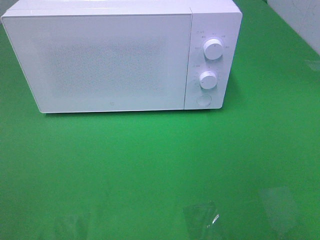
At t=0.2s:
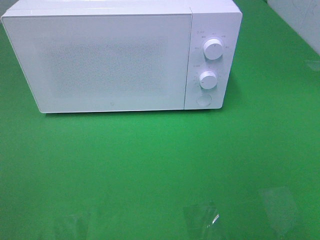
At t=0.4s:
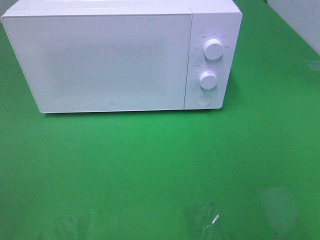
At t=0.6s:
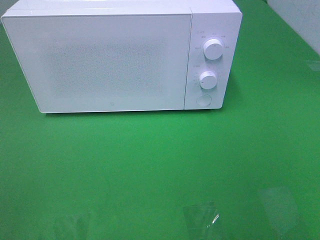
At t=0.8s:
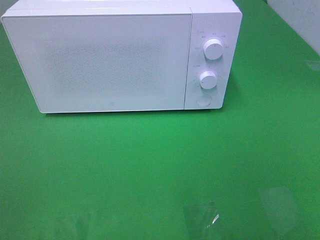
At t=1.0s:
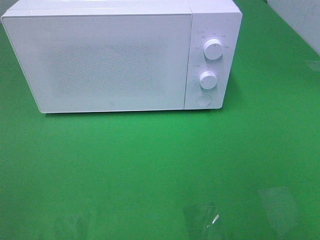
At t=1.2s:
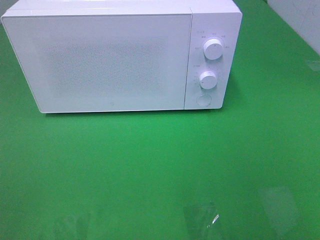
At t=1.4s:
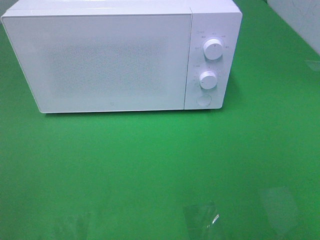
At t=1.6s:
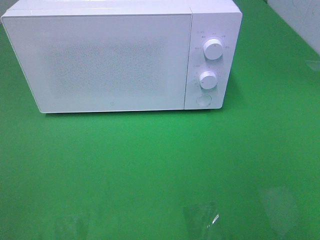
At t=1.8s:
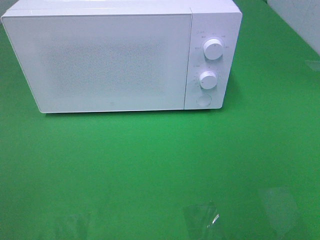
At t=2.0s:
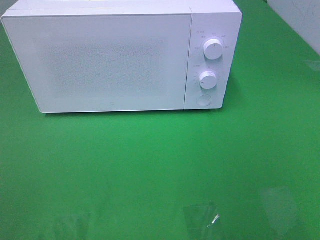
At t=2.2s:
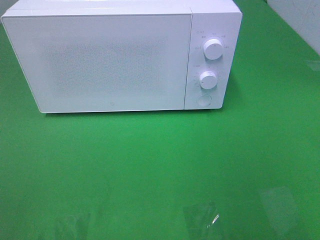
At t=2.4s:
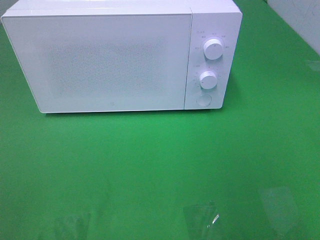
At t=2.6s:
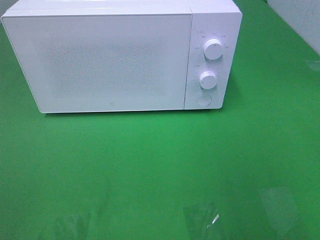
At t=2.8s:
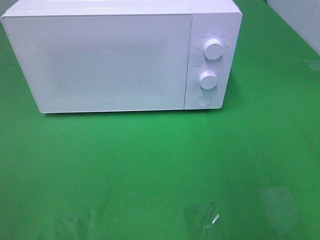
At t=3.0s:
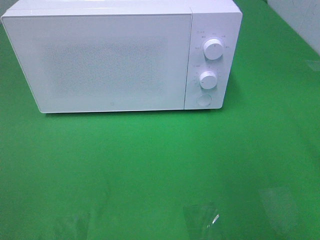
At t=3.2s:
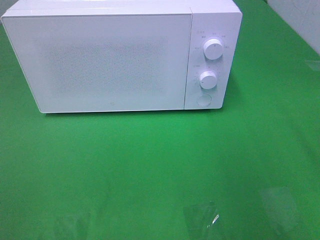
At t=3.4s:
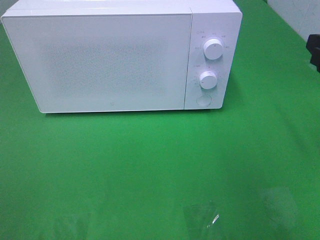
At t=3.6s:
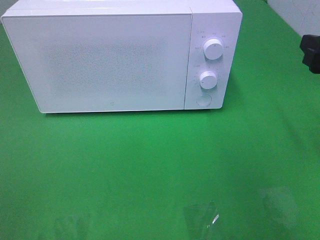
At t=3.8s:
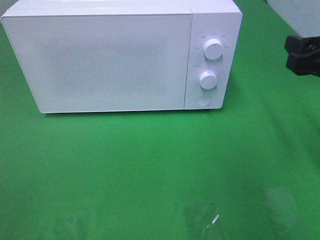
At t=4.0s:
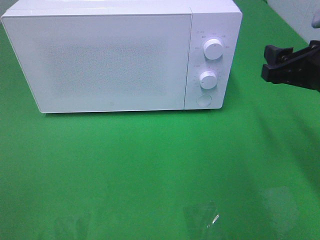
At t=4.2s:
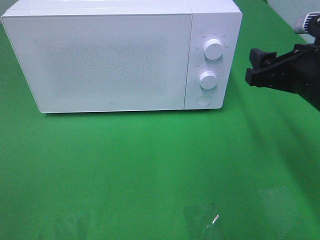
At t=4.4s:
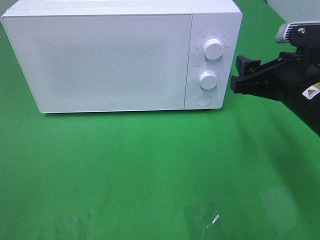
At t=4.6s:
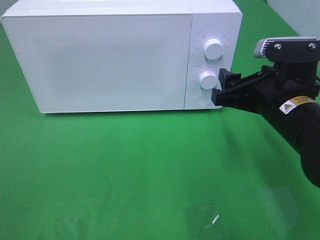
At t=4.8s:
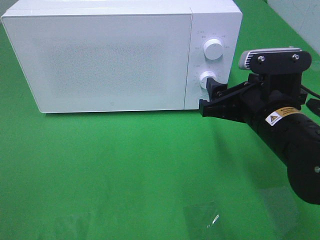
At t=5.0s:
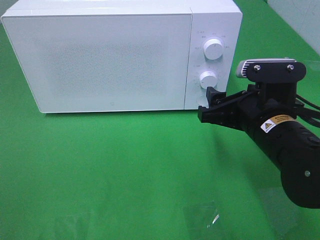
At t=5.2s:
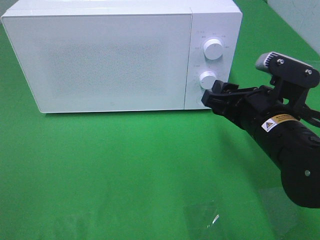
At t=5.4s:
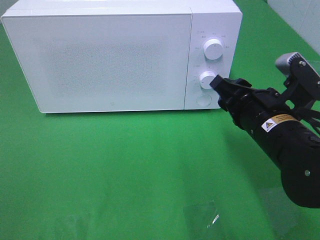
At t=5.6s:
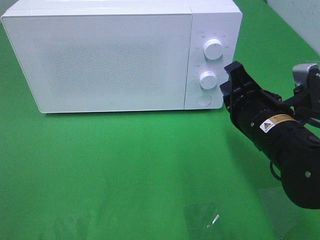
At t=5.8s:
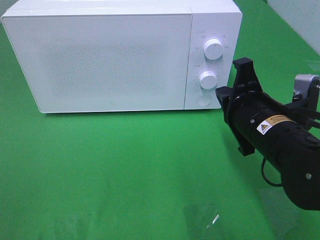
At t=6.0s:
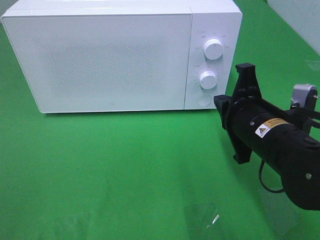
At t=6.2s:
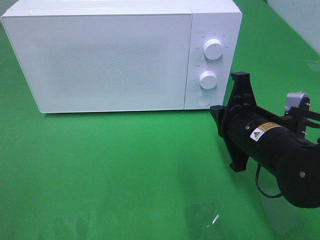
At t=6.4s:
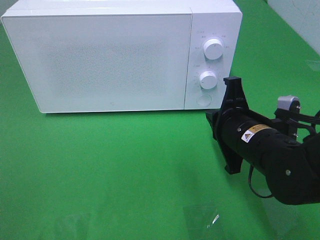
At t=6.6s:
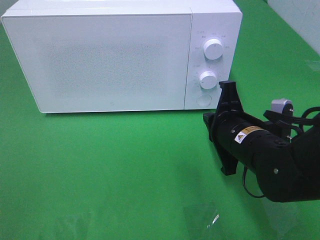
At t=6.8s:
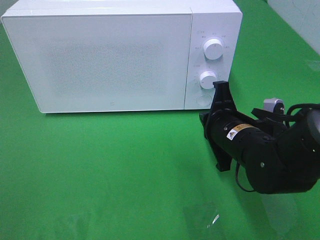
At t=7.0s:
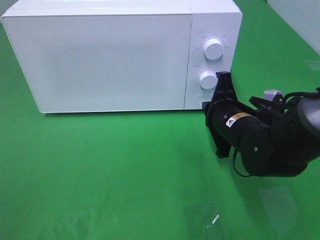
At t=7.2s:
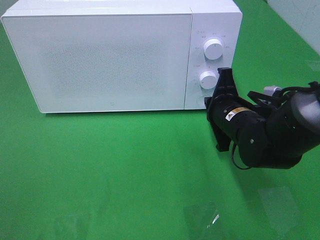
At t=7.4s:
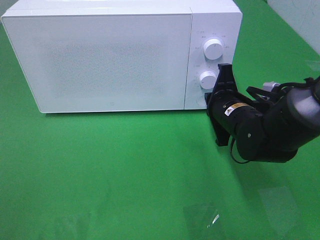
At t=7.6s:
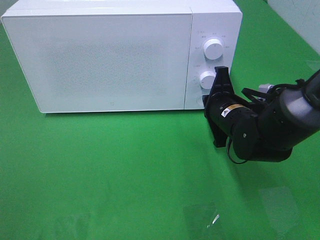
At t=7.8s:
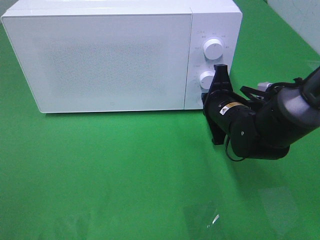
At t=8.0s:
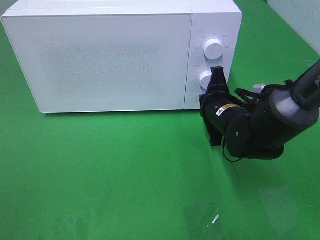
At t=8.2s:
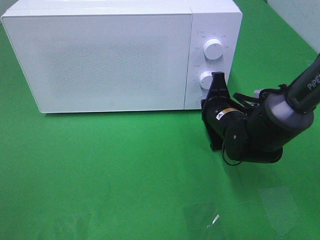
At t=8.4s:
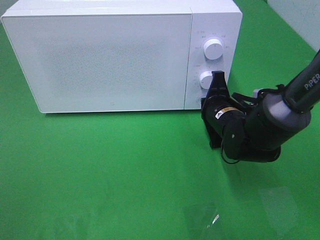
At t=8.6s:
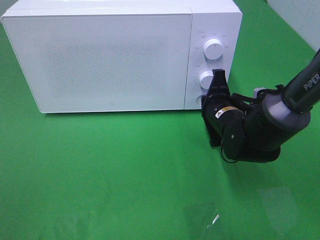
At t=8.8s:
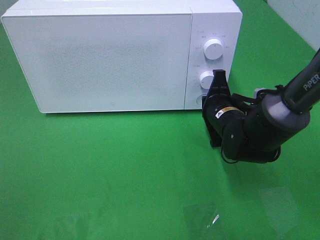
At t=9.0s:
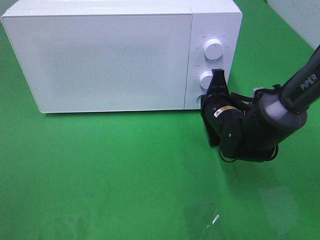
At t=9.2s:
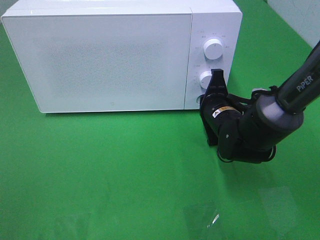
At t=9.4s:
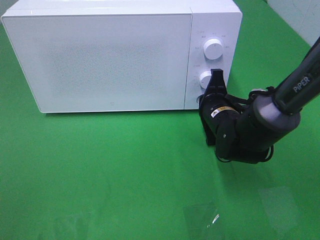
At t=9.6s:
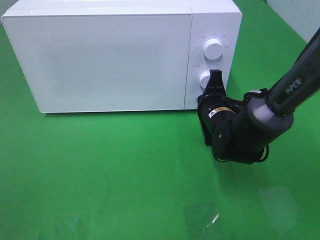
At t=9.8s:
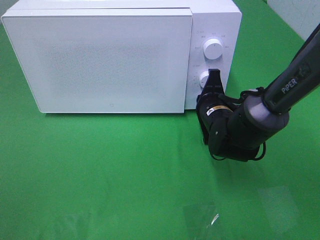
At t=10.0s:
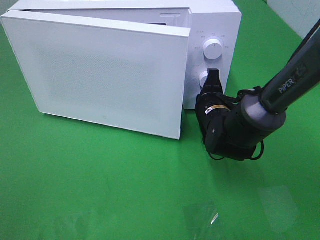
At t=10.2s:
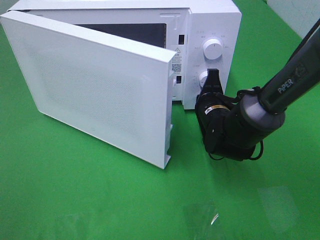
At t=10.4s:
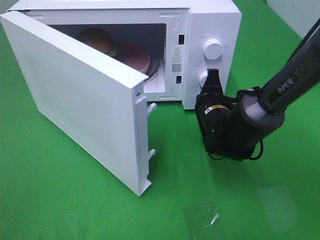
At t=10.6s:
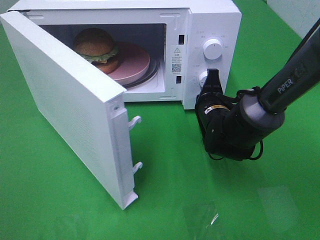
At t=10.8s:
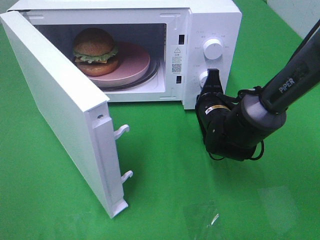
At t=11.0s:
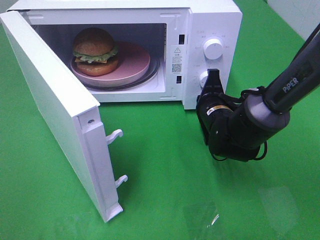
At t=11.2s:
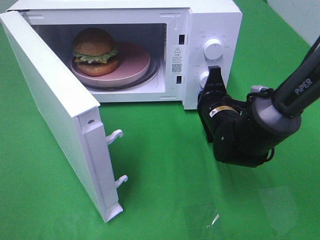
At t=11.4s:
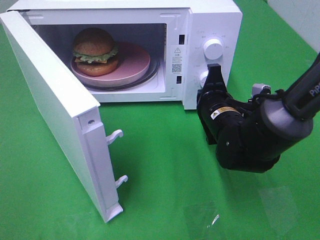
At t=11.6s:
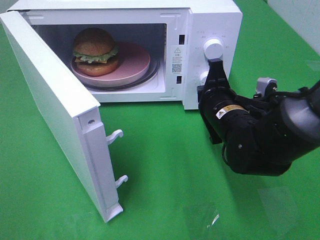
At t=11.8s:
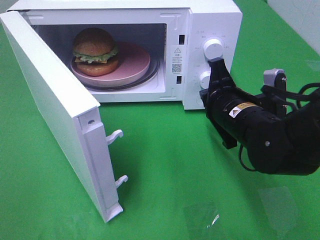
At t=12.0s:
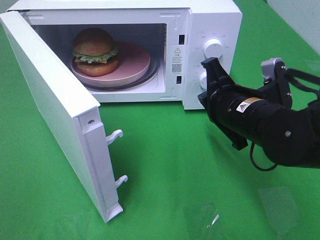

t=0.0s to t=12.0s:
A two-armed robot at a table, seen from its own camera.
Task of the whole recording: Heat the burger.
Step, t=0.0s to t=11.2s: Right hand: press the switch.
t=3.0s to t=4.4s: The right gripper goes roughly 15 cm downward, to the left and forward.
t=4.4s to t=6.0s: The right gripper ends up roughly 5 cm from where it was, and closes.
t=6.0s to t=7.6s: The right gripper is displaced forward and downward by approximately 10 cm.
t=7.6s to t=9.0s: The grippers make only small movements.
t=10.4s to t=12.0s: The right gripper shifts approximately 15 cm backward and upward.

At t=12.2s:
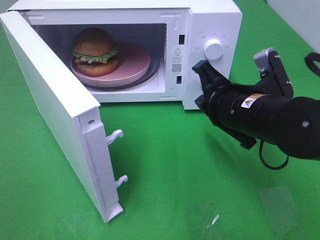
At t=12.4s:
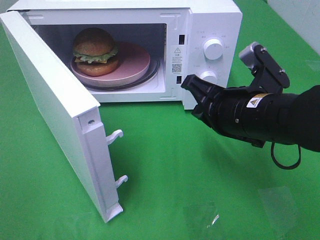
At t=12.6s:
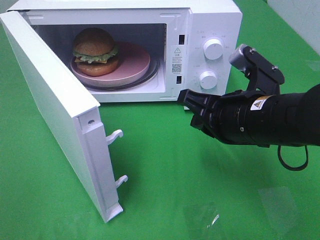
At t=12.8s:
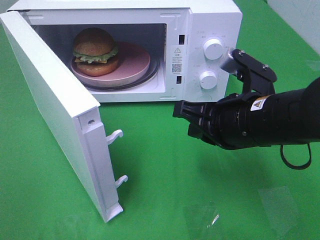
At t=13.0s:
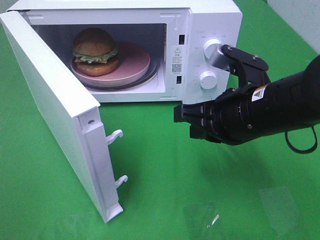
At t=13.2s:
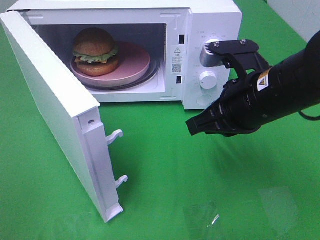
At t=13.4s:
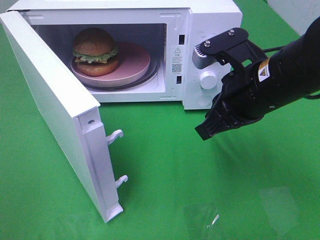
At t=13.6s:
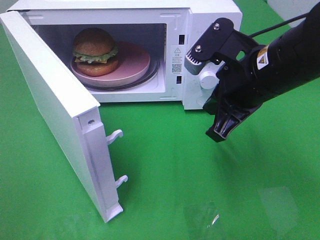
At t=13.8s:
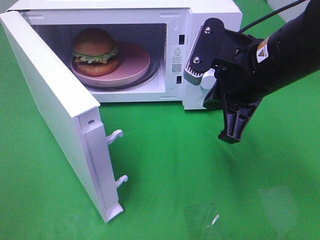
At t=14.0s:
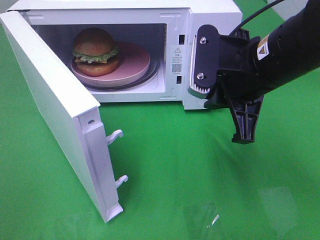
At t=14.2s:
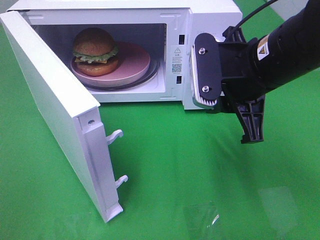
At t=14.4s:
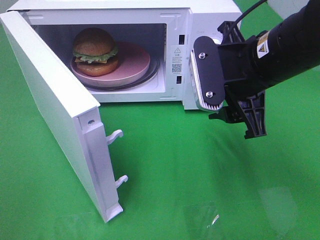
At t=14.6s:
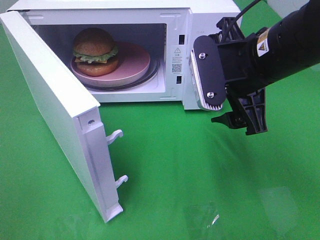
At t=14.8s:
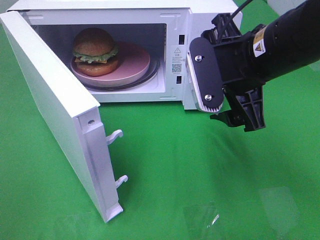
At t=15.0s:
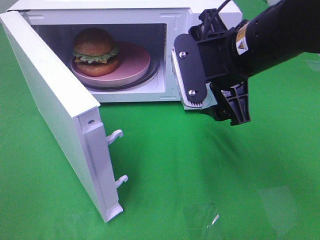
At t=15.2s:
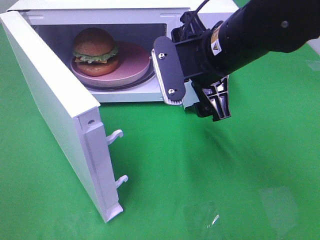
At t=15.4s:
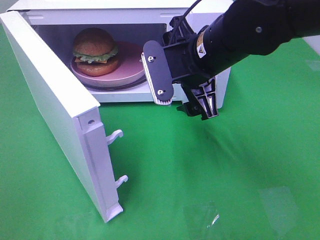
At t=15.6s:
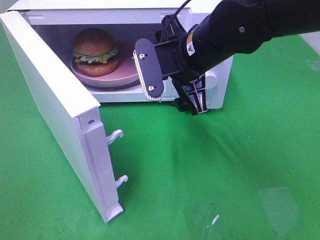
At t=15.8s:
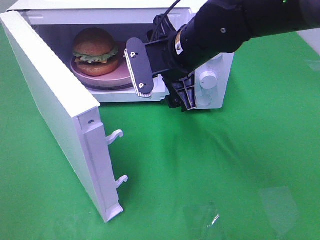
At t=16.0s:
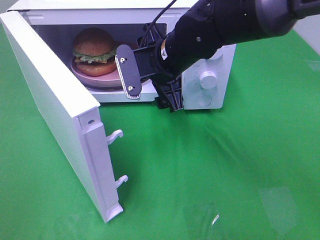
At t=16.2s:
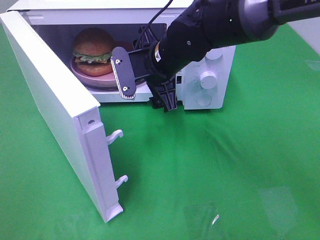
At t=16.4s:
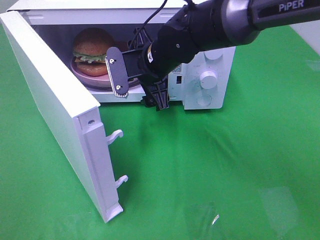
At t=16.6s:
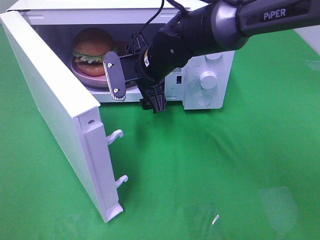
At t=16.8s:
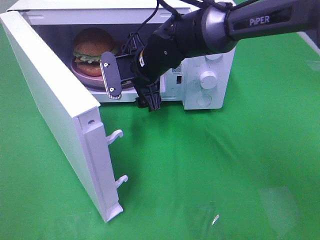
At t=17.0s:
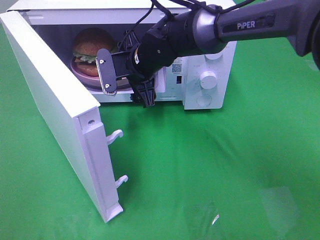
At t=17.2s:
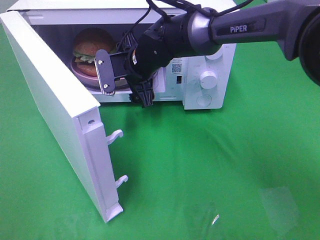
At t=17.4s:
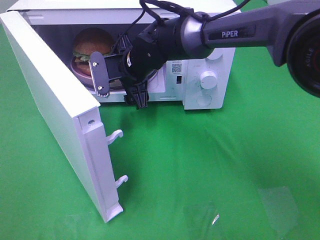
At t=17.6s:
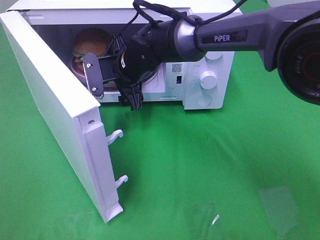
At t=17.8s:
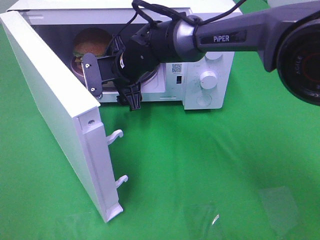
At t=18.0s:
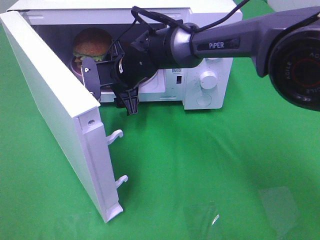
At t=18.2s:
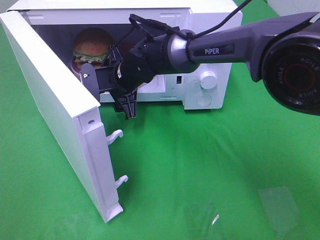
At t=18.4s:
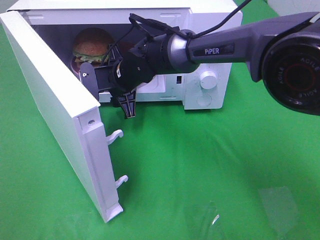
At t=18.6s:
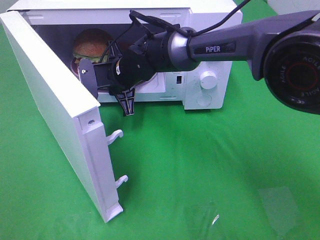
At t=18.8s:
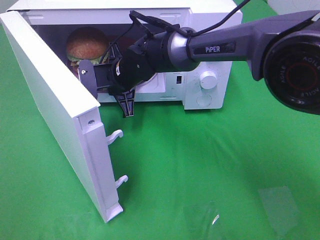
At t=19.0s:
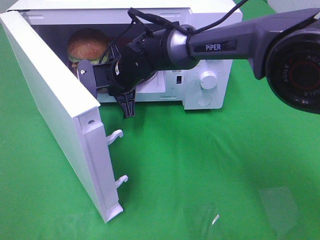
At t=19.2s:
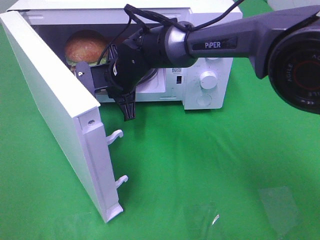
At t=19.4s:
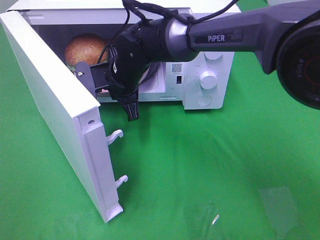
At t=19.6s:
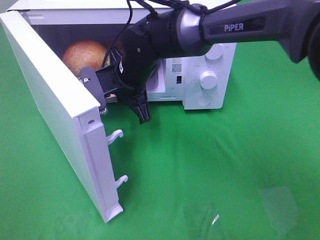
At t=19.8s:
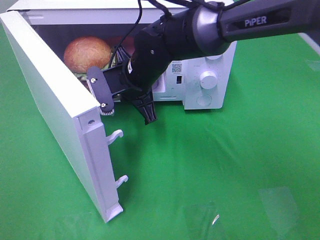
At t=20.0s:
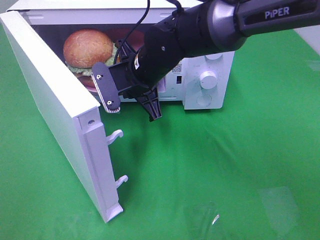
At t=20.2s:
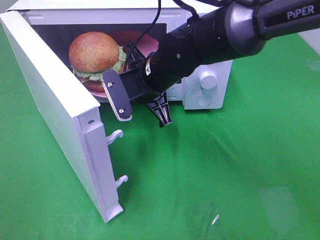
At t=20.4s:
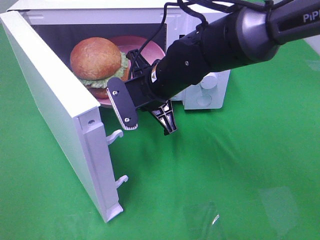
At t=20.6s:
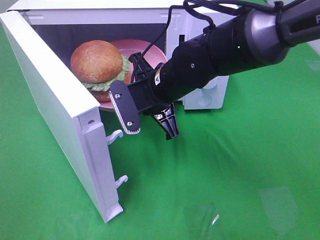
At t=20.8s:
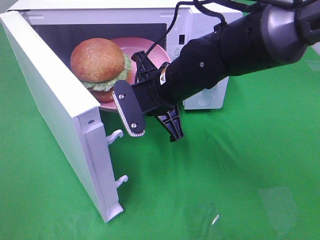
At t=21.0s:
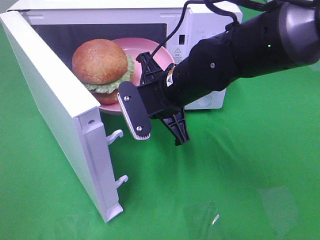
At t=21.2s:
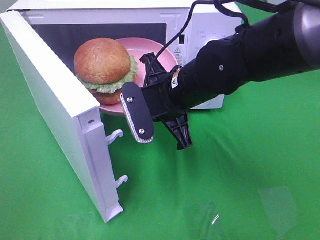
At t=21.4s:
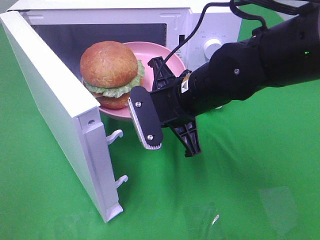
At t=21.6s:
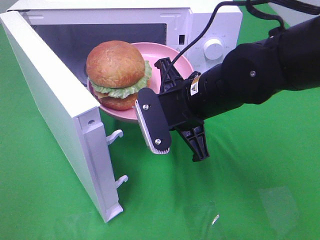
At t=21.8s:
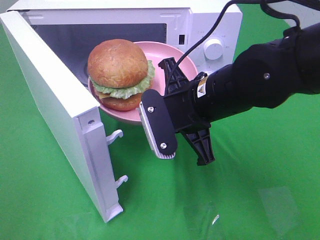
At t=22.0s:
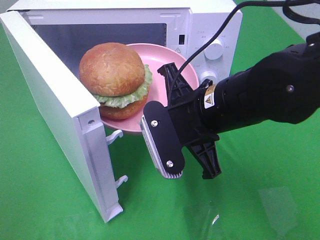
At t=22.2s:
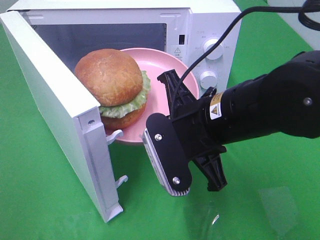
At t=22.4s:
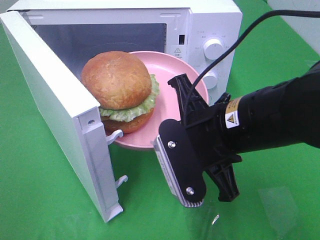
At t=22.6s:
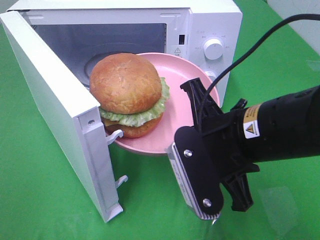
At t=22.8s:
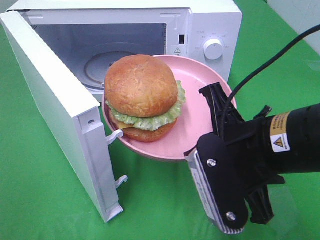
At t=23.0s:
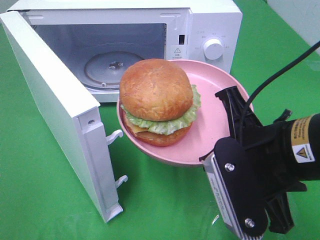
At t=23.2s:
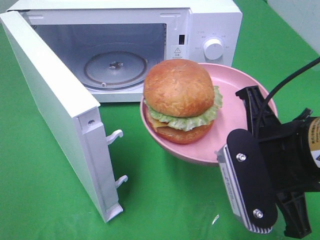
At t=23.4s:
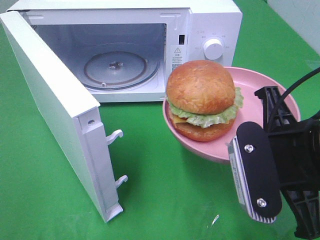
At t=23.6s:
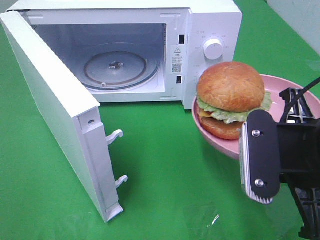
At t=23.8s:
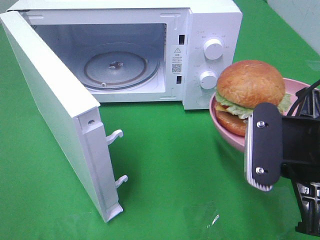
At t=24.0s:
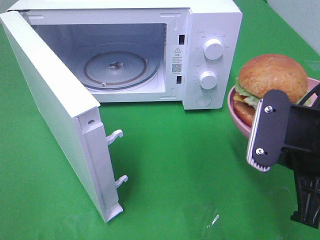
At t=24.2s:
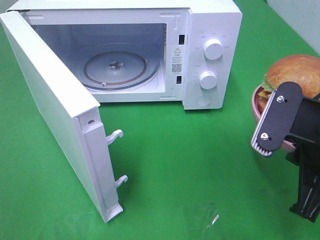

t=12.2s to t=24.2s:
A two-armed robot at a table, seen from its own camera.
Task of the whole recording: Heat the burger.
Step, t=12.2s to t=18.6s: Right hand: grab the plate with the hamburger.
t=12.2s to t=13.8s: The right gripper is displaced upward by some 5 cm.
t=13.8s to t=15.2s: The right gripper ends up approximately 5 cm from where it was, and opens its fingers.
t=15.2s to t=16.6s: The right gripper is displaced forward, to the left and downward by roughly 15 cm.
t=16.6s to t=18.2s: The right gripper heads to the left, covering roughly 5 cm.
t=18.2s to t=19.8s: The right gripper shifts by approximately 5 cm, and closes its fingers.
t=19.8s to t=21.2s: The right gripper is displaced backward and to the right by roughly 10 cm.
t=21.2s to t=22.6s: The right gripper heads backward and to the right, covering some 15 cm.
t=22.6s to t=24.2s: The right gripper goes some 10 cm to the right.
